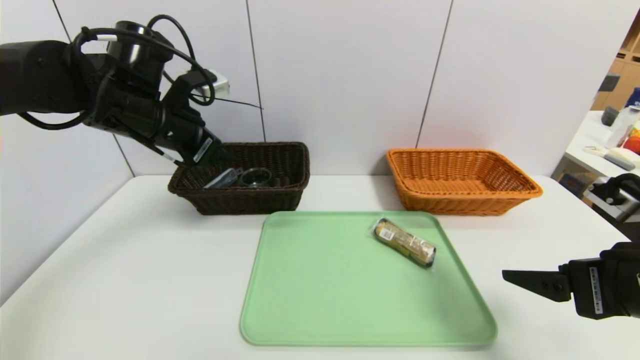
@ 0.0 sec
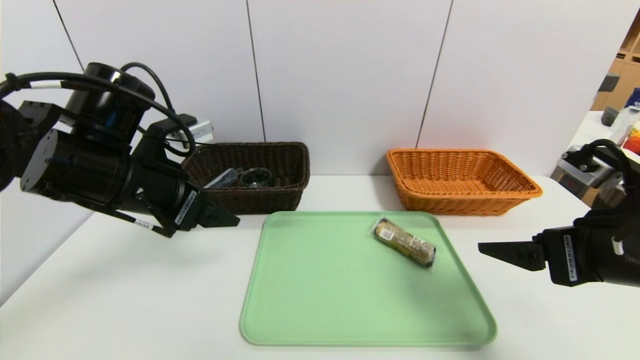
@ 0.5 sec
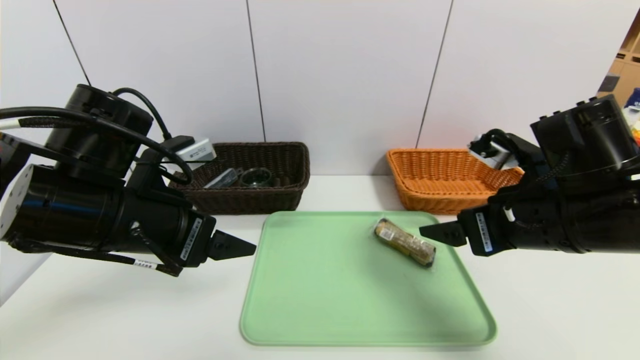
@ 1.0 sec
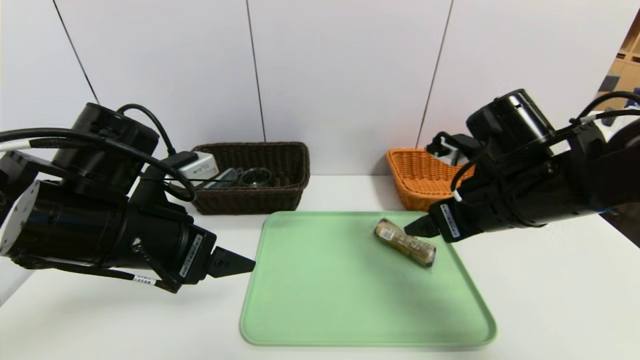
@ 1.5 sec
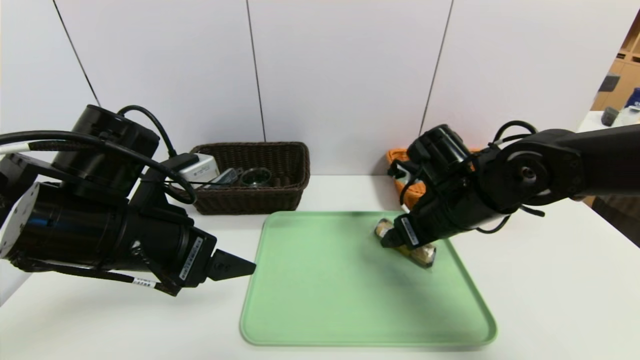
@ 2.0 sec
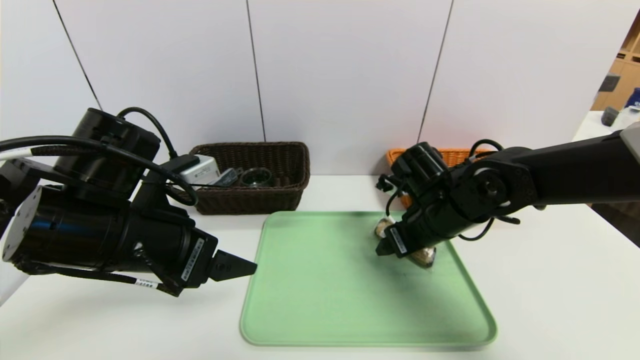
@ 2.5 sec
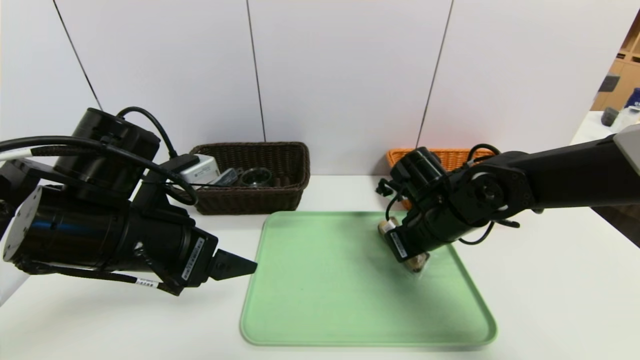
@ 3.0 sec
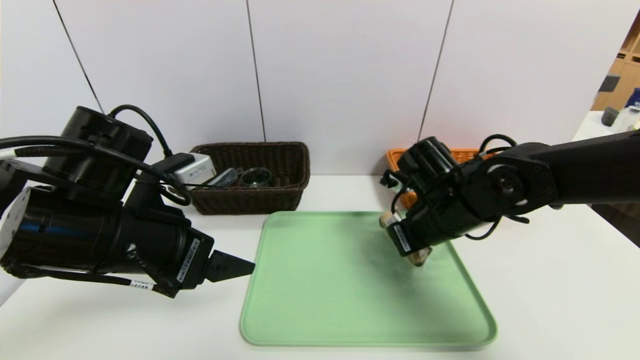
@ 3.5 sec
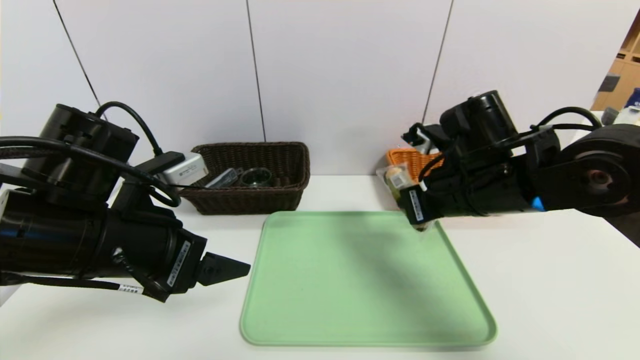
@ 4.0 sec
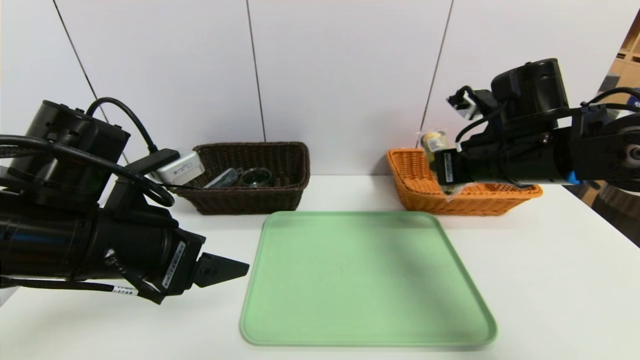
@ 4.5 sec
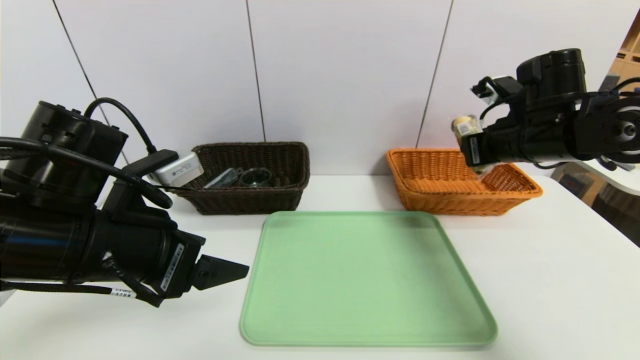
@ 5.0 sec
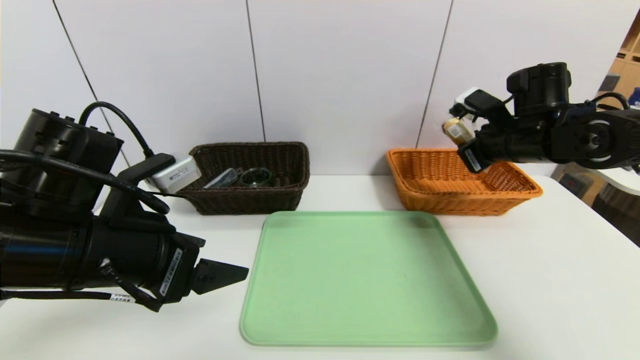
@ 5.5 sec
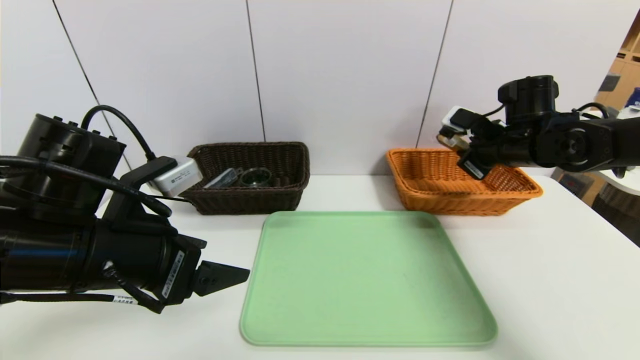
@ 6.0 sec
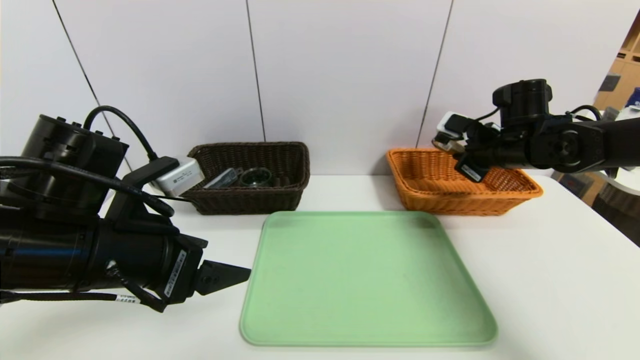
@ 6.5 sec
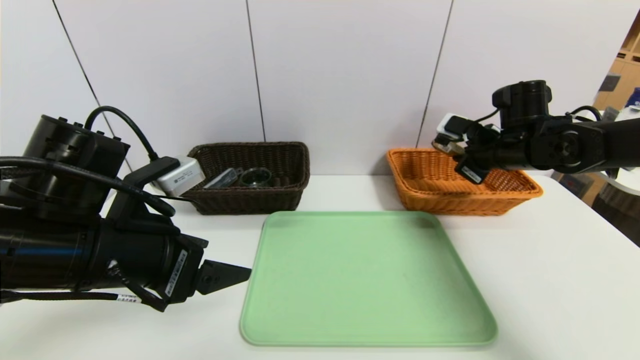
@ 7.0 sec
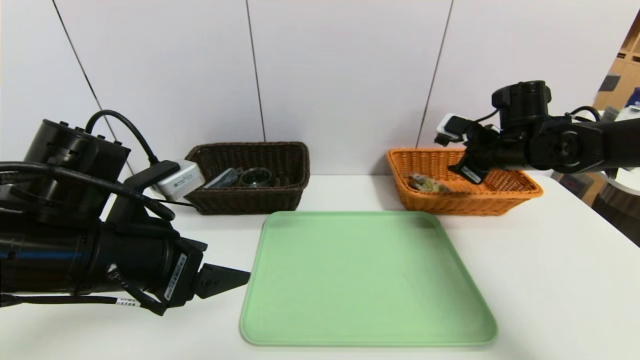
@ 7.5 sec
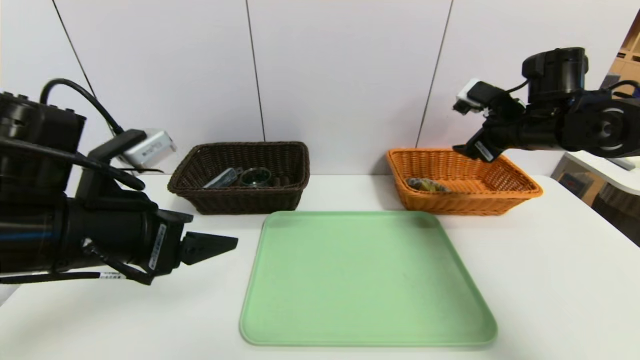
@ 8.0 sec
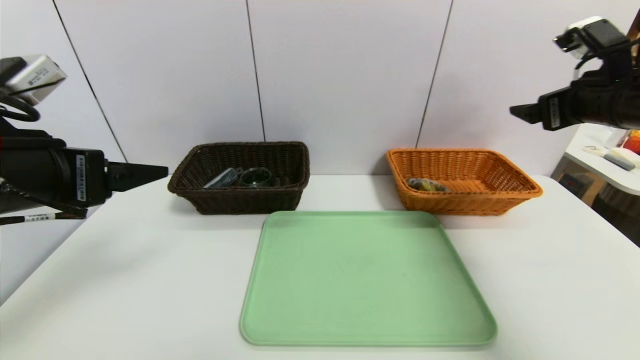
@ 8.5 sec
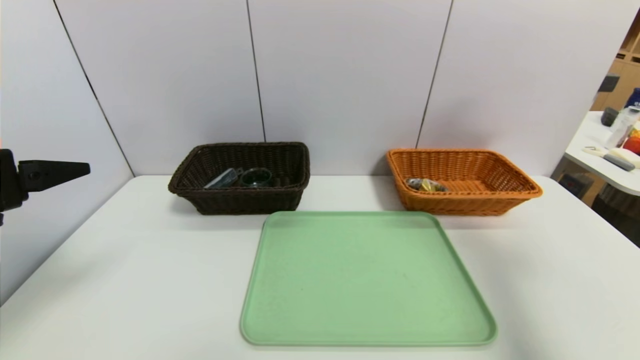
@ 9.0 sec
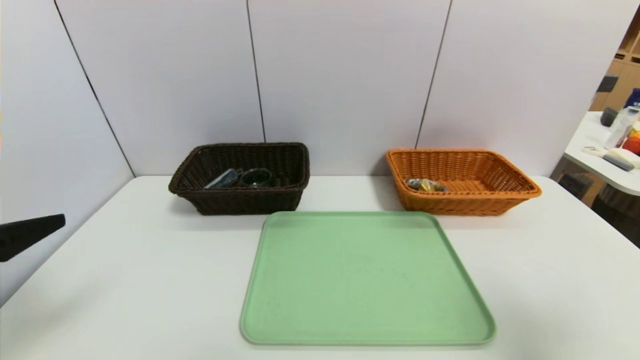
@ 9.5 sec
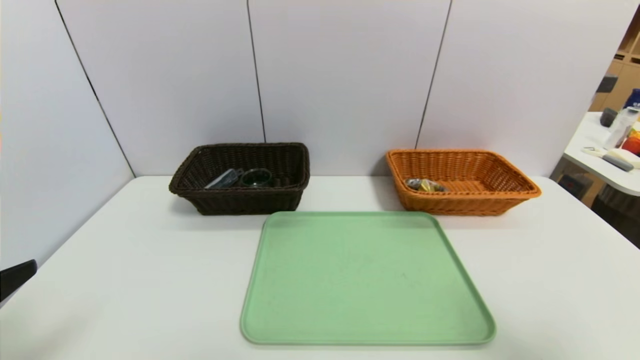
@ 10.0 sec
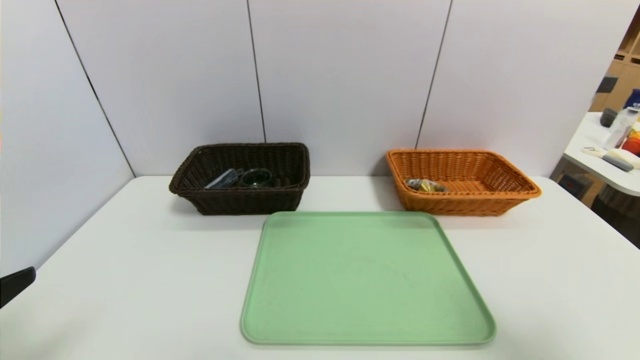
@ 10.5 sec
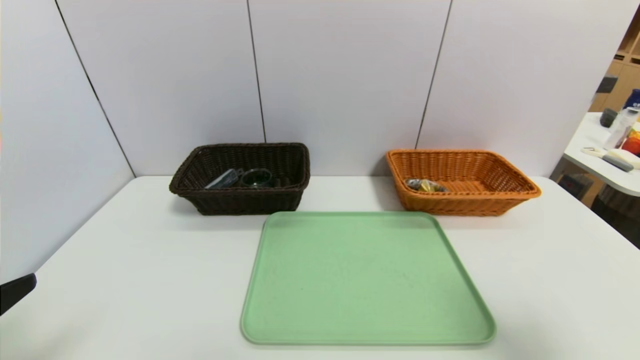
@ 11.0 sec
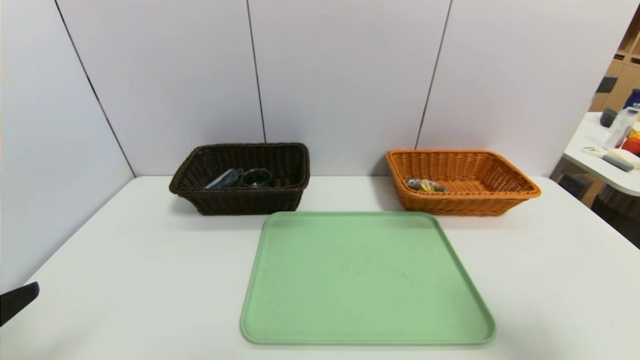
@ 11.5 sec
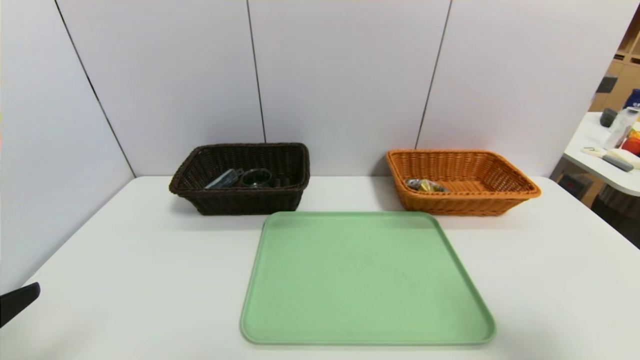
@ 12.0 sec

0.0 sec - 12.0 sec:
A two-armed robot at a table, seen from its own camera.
Task of the whole recording: place the food in the right basket with the right gripper, and place the non food items in the left basket with the left gripper.
Step, 0.0 sec - 7.5 sec: Grasp the chocolate and put it in the right basket.
0.0 sec - 2.0 sec: The left gripper heads backward and downward, covering some 15 cm. Meanwhile the right gripper travels forward and to the left by approximately 20 cm.
2.0 sec - 4.0 sec: The right gripper closes its fingers.
4.0 sec - 6.0 sec: The right gripper travels to the right and forward by some 15 cm.
6.0 sec - 8.0 sec: The right gripper opens.
8.0 sec - 10.0 sec: The right gripper heads backward, covering approximately 35 cm. The left gripper shifts some 15 cm backward and to the left.

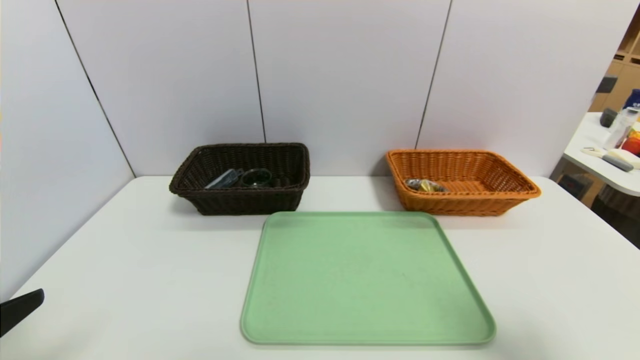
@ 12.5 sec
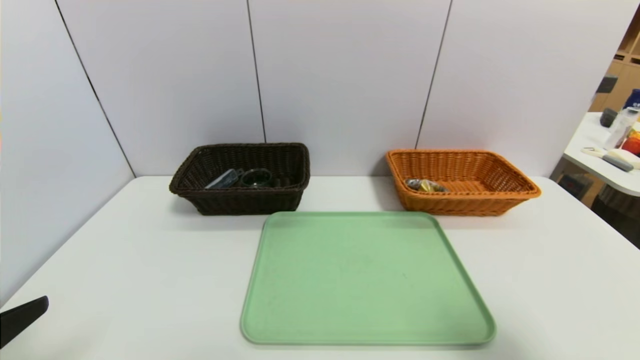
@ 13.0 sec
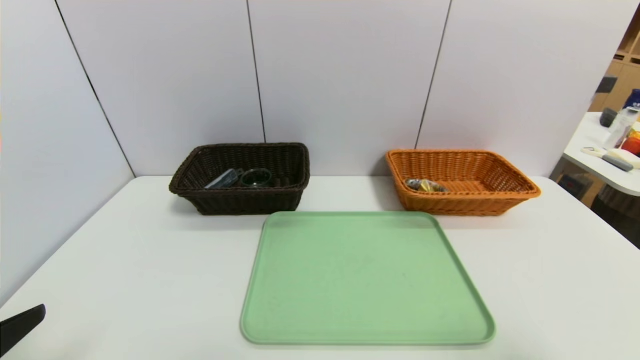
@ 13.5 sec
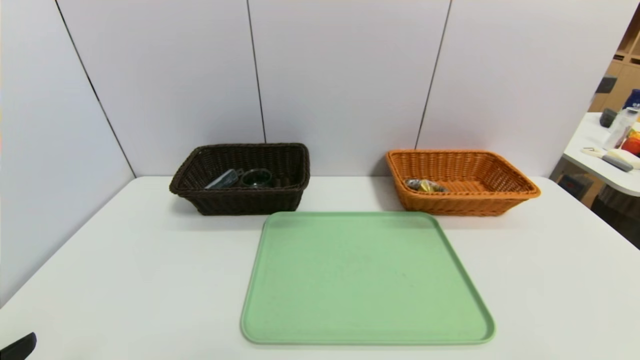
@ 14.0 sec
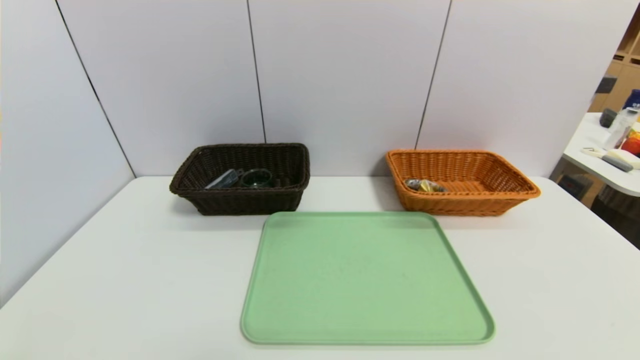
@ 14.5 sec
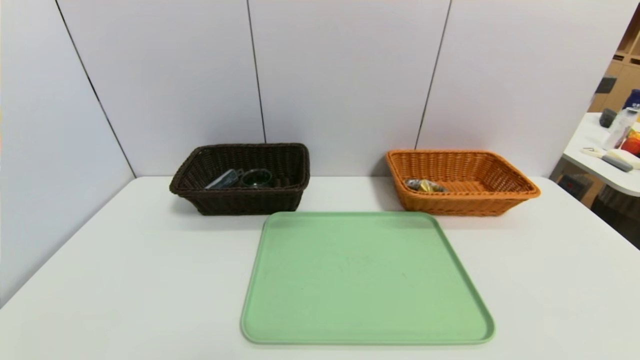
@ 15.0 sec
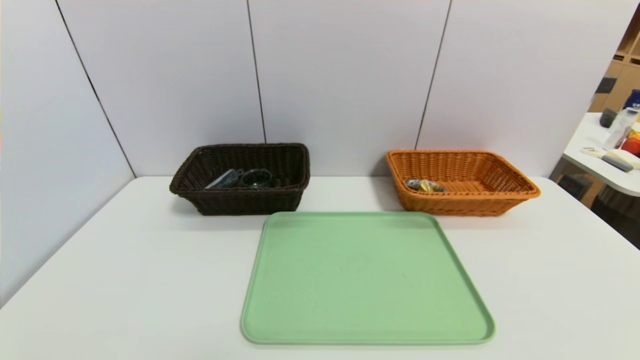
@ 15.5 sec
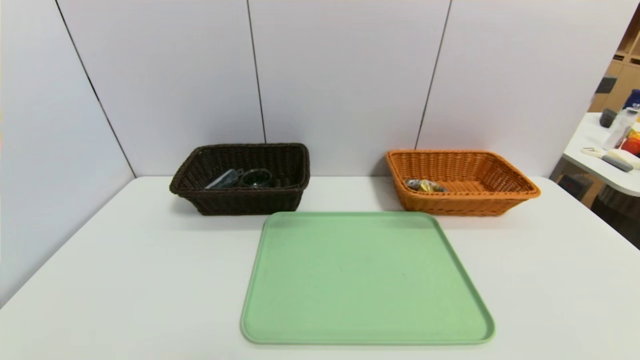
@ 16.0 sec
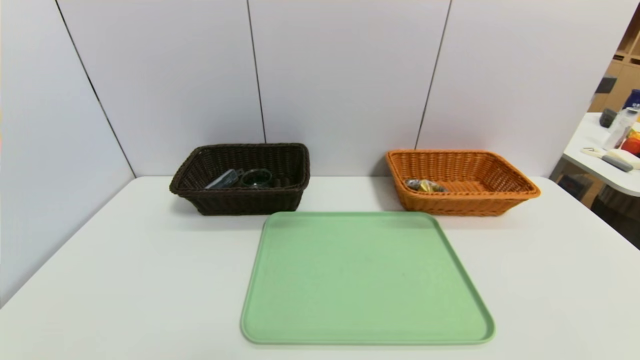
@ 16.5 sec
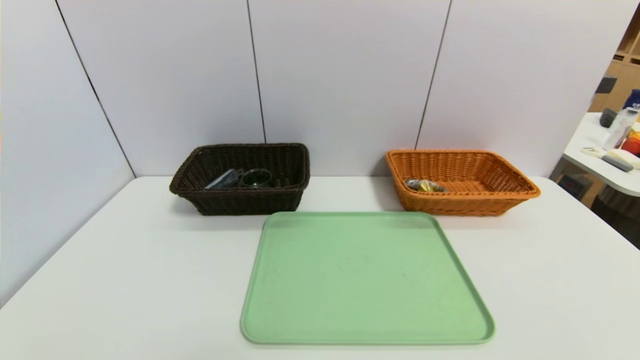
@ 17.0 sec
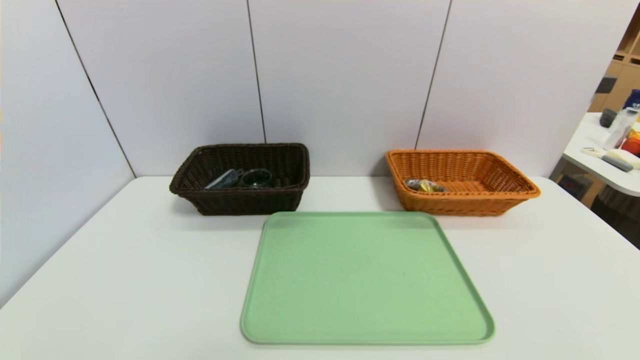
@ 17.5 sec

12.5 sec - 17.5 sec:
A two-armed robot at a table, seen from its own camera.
Task of the whole recording: place the food in the right basket with the right gripper, and place the non food items in the left basket with the left gripper.
12.5 sec - 15.0 sec: The right gripper goes about 15 cm backward and downward; the left gripper is displaced downward and backward by roughly 10 cm.
